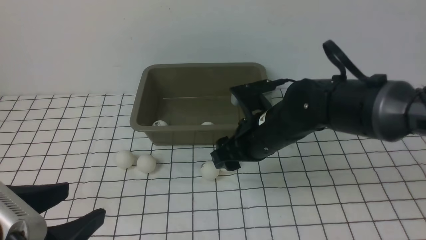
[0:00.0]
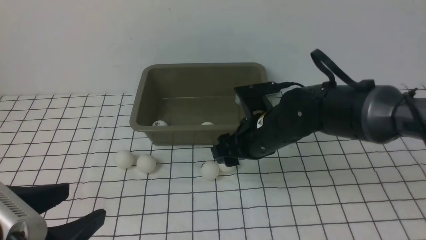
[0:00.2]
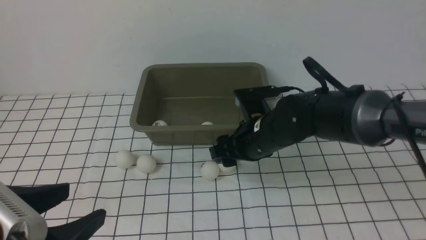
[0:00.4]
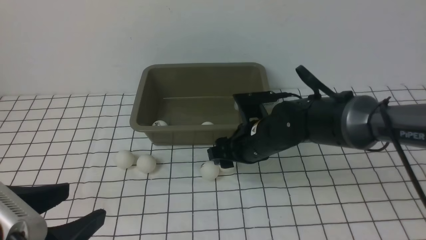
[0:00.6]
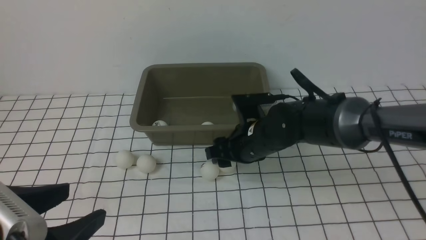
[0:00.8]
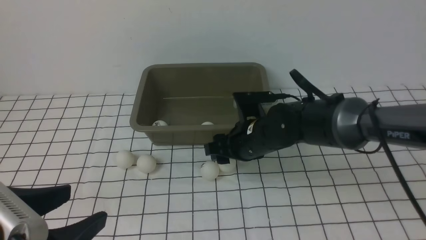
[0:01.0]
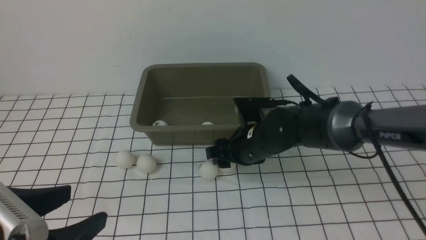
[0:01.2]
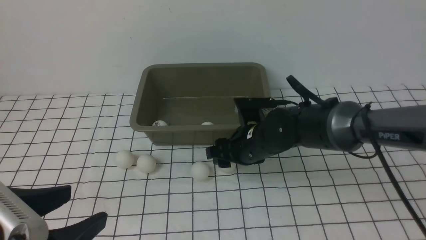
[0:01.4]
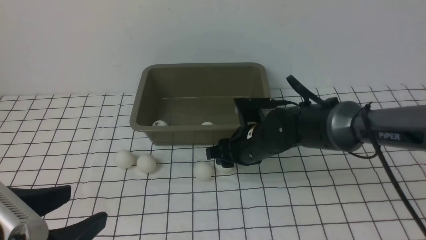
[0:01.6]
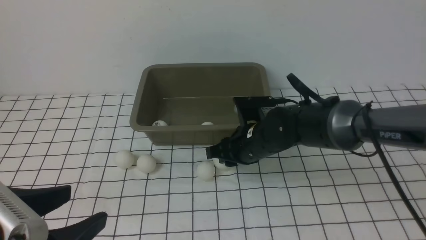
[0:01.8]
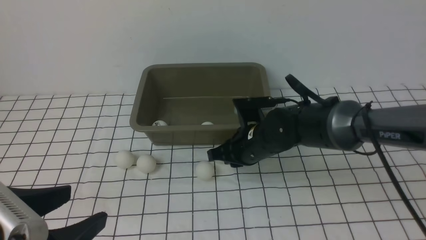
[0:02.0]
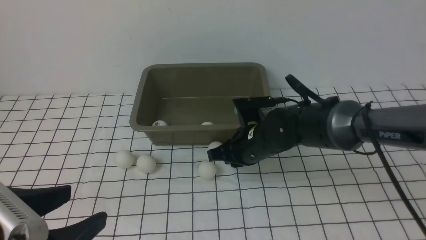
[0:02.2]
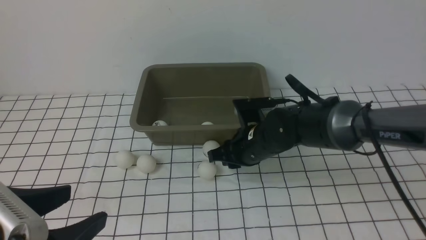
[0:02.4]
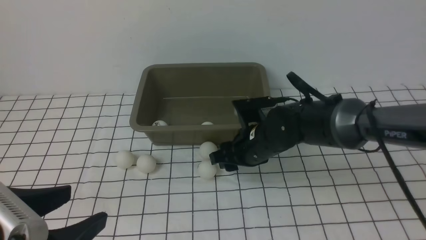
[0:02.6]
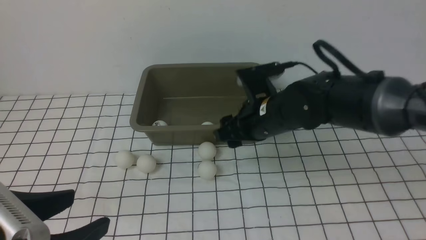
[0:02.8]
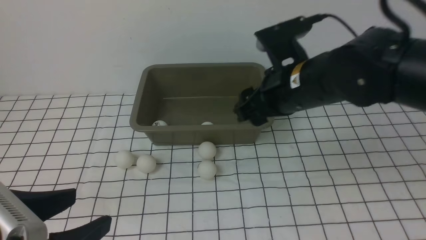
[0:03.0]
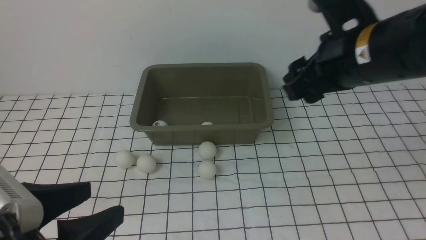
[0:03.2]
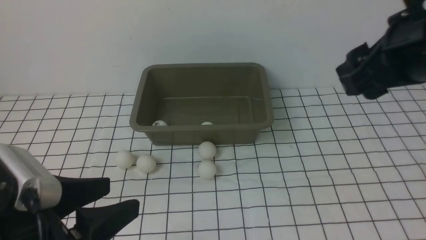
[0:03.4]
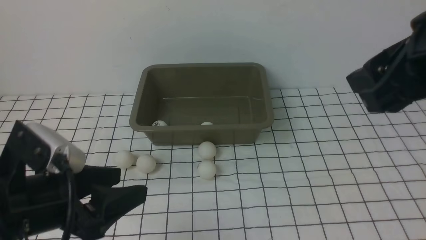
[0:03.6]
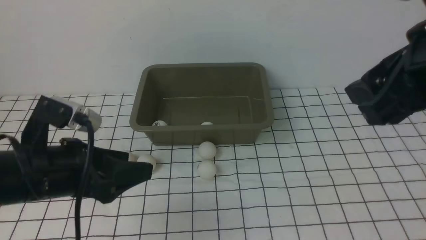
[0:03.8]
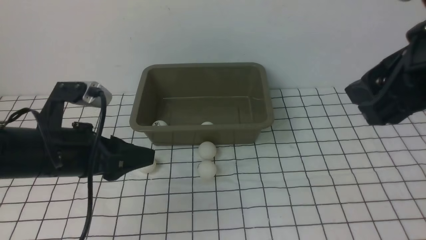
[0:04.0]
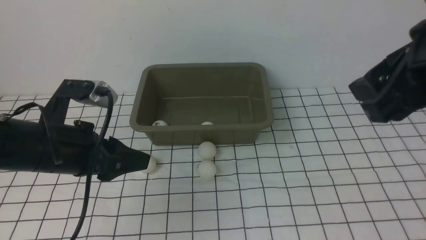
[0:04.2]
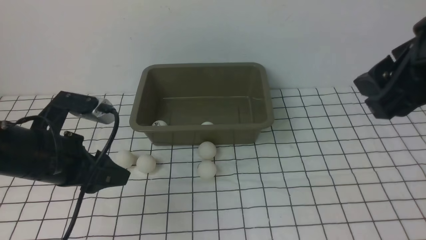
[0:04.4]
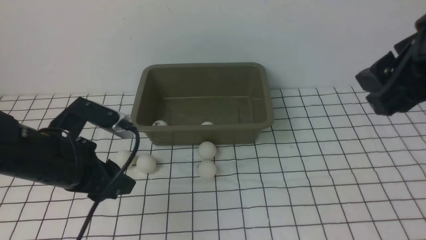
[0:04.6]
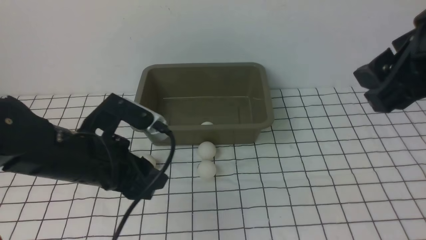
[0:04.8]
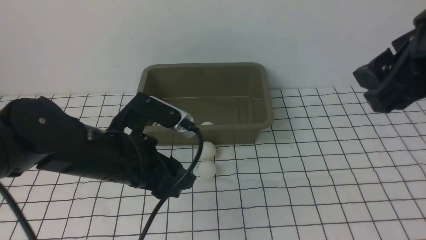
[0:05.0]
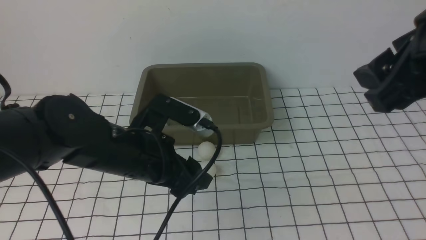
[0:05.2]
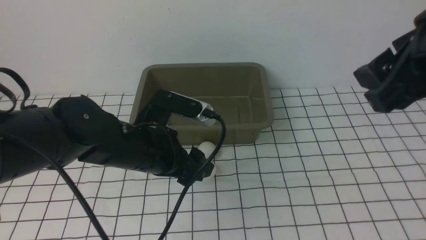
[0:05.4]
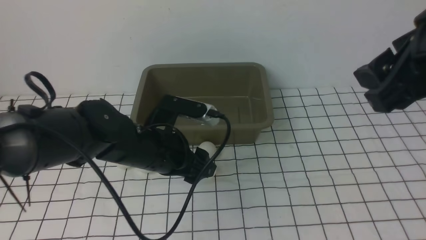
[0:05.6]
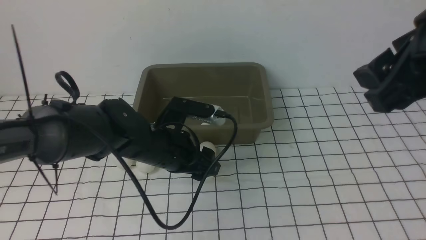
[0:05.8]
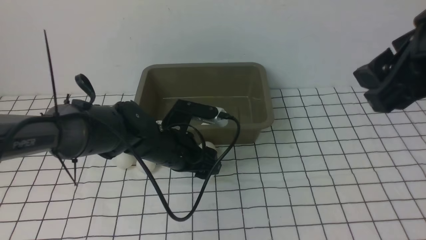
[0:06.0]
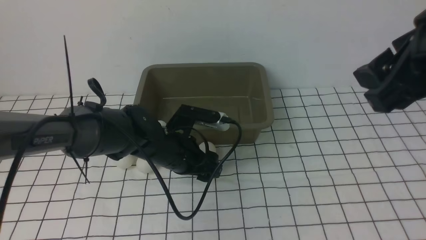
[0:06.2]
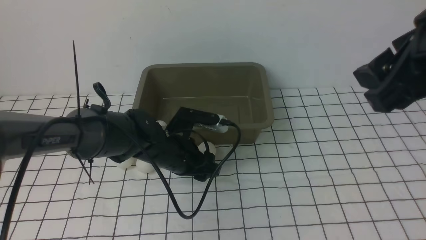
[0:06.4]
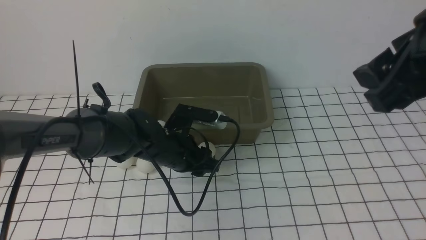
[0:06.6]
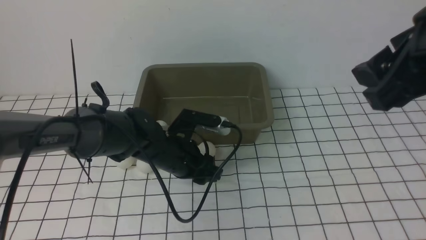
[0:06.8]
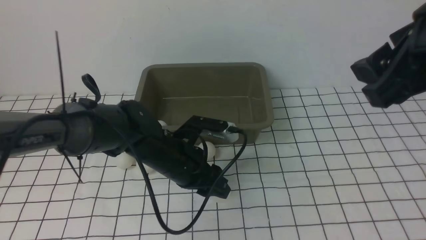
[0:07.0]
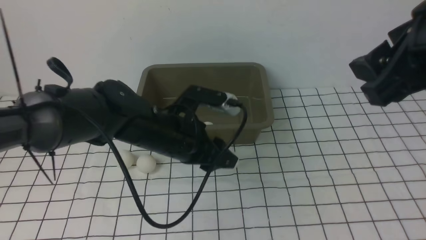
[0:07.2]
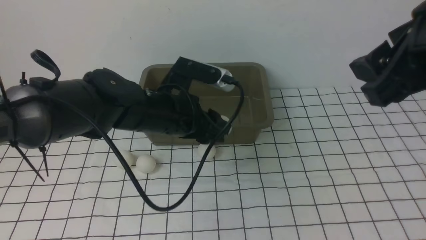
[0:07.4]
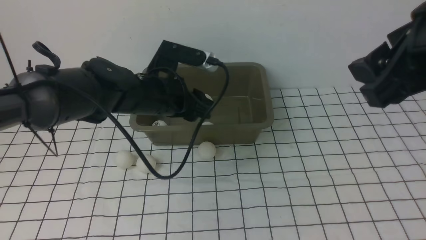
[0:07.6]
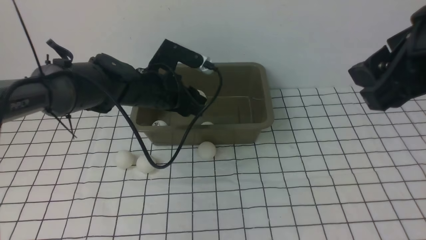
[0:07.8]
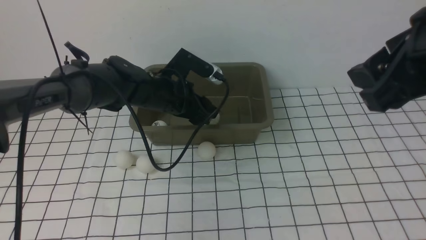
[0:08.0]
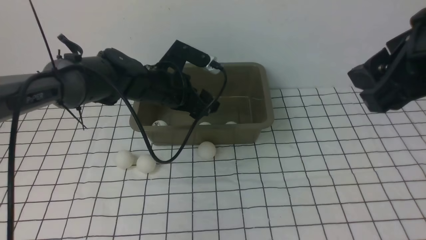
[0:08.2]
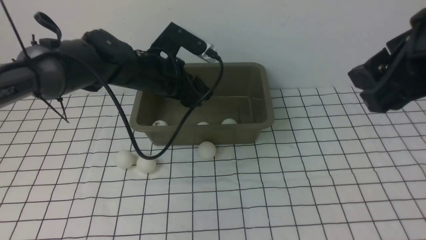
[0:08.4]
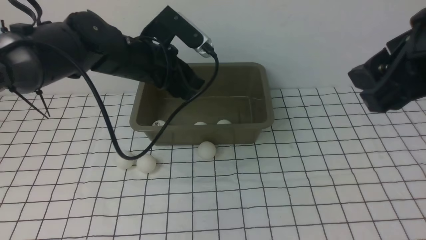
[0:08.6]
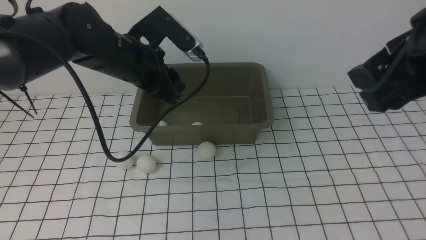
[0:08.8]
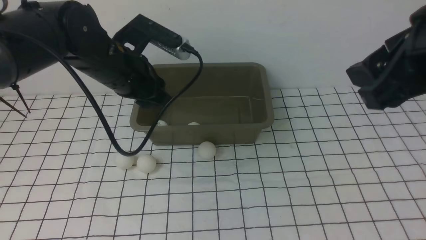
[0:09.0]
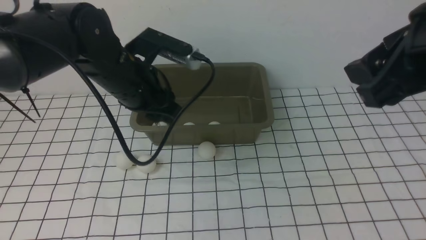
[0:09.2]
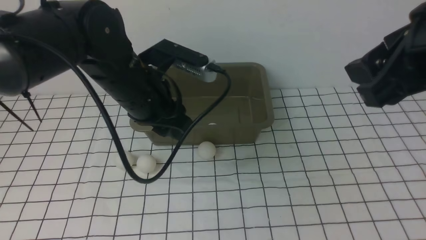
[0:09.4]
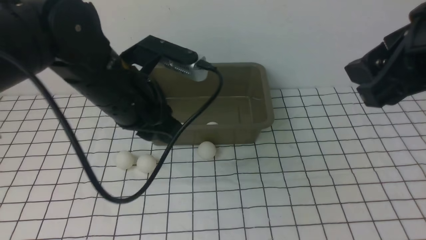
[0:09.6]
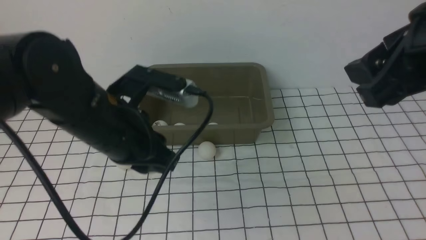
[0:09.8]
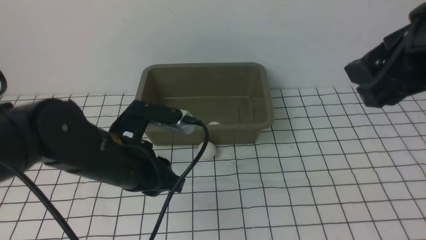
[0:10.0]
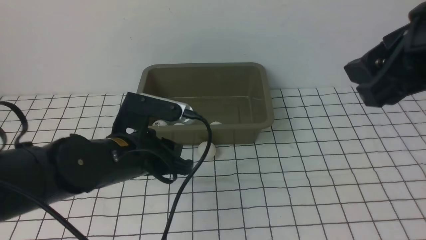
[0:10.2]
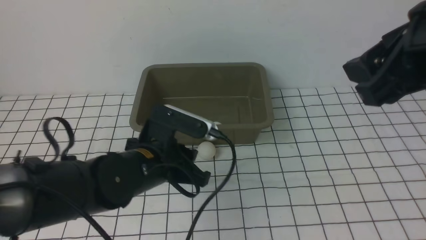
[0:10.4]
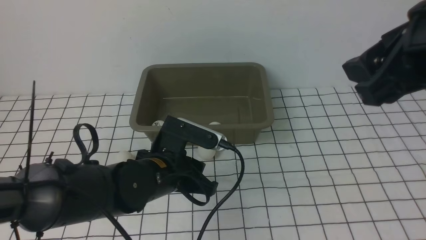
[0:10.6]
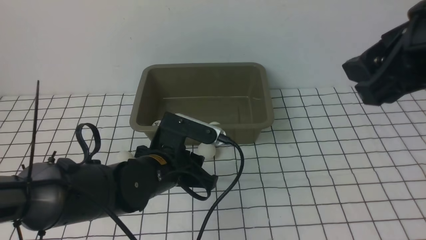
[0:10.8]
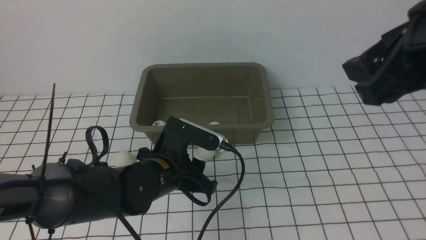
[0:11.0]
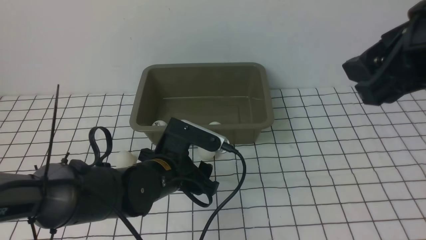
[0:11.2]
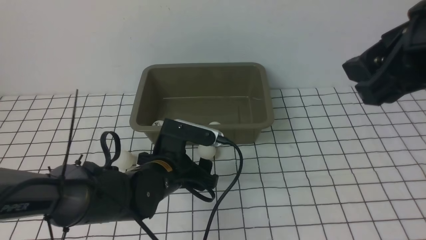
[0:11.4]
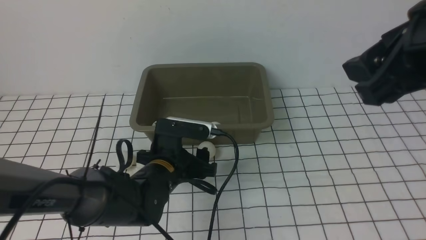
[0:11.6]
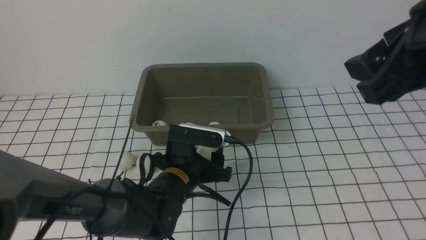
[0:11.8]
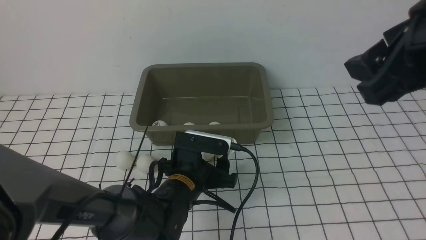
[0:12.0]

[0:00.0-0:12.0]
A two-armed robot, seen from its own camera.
Step, 0:00.0 to 0:07.2: use the left arm to clamp the table tennis ball closest to it.
Step, 0:07.4 to 0:08.2: use the left arm to put the table tennis ball into the box.
0:00.0 to 0:01.6: The right gripper moves downward, about 5 cm, and closes up.
0:01.6 to 0:03.0: The right gripper moves upward, some 15 cm, and opens up.
0:03.0 to 0:04.4: The right gripper is displaced backward, upward and to the right by about 15 cm. Meanwhile the left gripper moves forward, about 15 cm, and closes its fingers.
0:04.4 to 0:06.0: The left gripper goes some 20 cm to the right, downward and forward, and opens up.
0:06.0 to 0:07.6: The left gripper travels upward by approximately 10 cm, and closes its fingers.
0:07.6 to 0:09.0: The left gripper shifts some 5 cm upward, and opens, then closes again.
0:09.0 to 0:10.4: The left gripper moves backward and downward, approximately 15 cm, and closes.
0:10.4 to 0:12.0: The left gripper heads downward, covering some 10 cm, and opens its fingers.

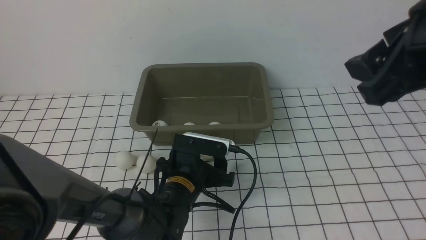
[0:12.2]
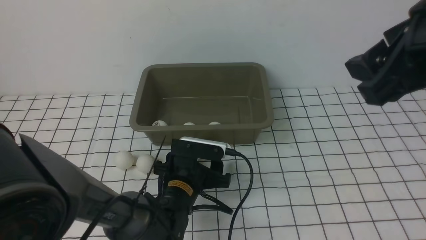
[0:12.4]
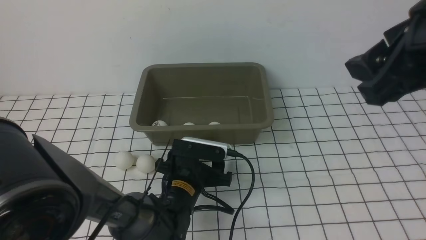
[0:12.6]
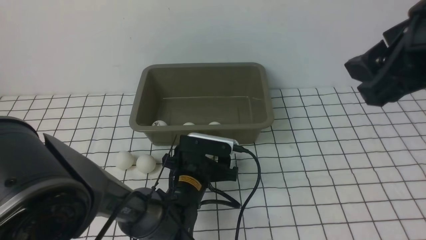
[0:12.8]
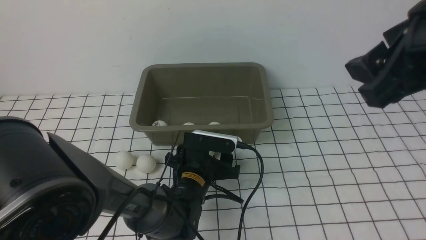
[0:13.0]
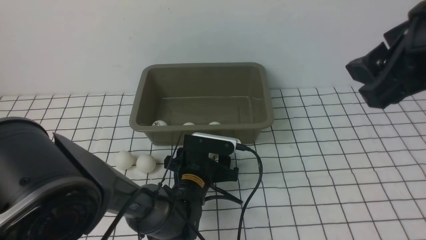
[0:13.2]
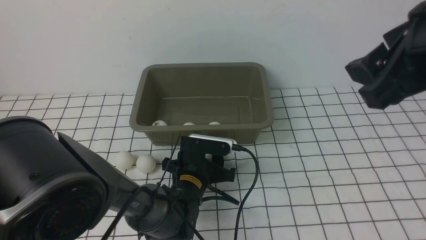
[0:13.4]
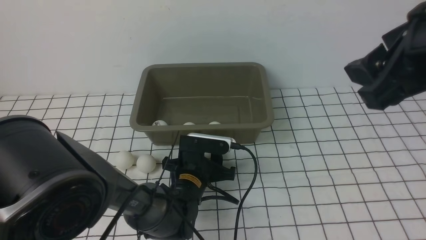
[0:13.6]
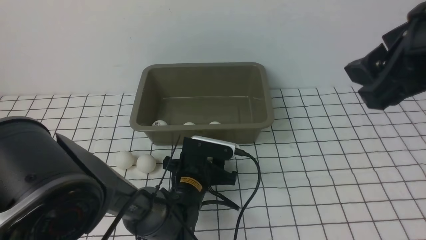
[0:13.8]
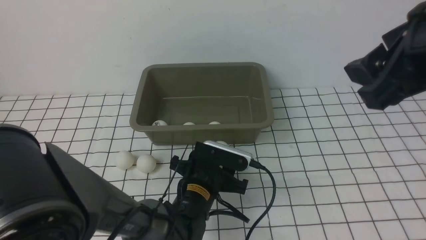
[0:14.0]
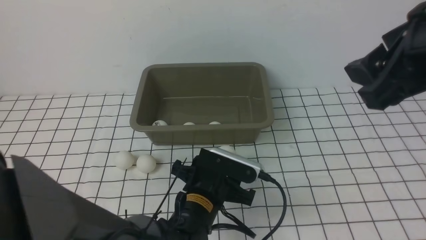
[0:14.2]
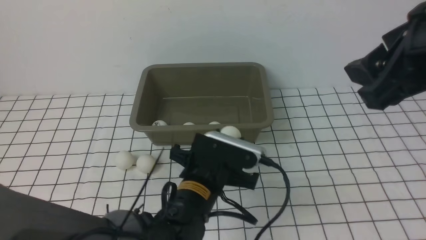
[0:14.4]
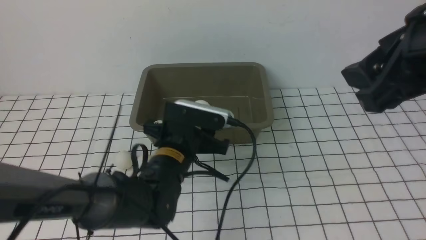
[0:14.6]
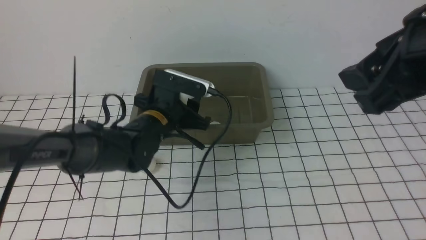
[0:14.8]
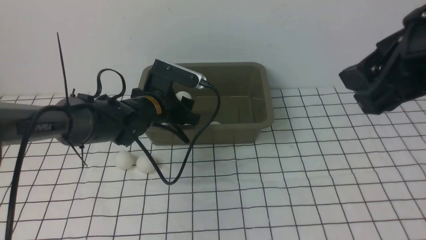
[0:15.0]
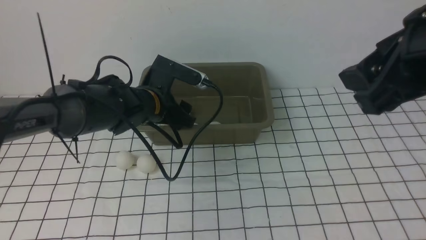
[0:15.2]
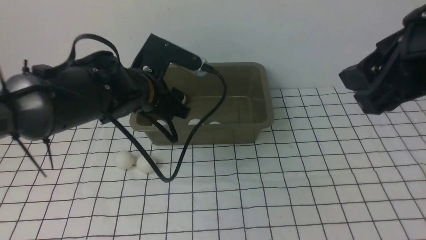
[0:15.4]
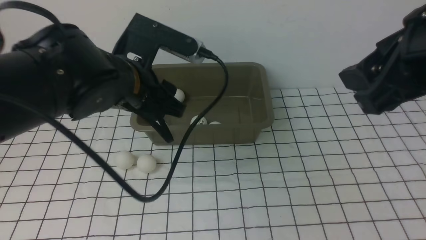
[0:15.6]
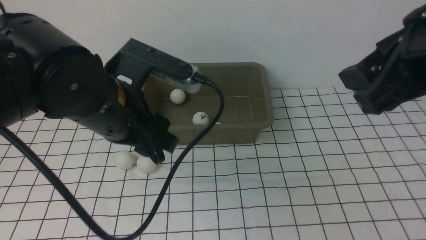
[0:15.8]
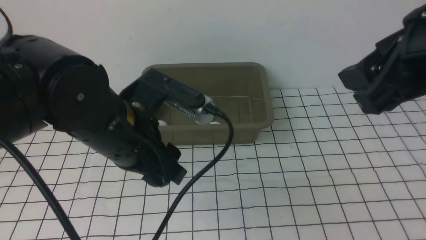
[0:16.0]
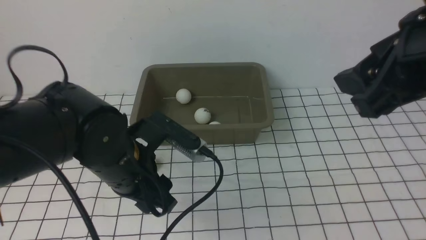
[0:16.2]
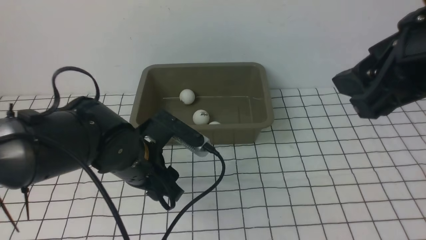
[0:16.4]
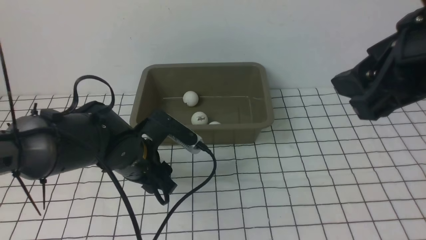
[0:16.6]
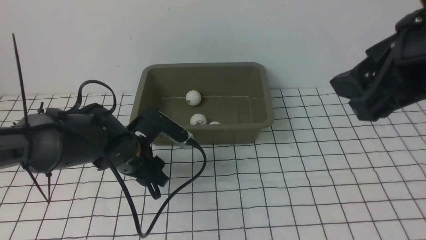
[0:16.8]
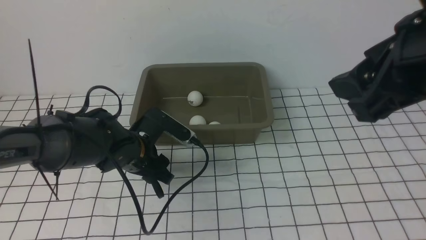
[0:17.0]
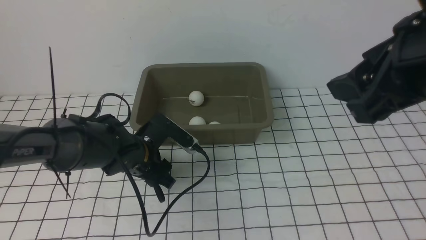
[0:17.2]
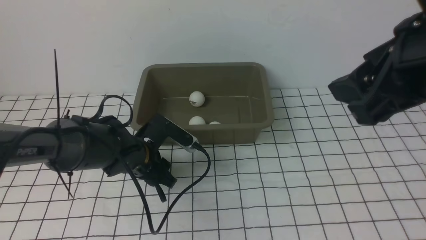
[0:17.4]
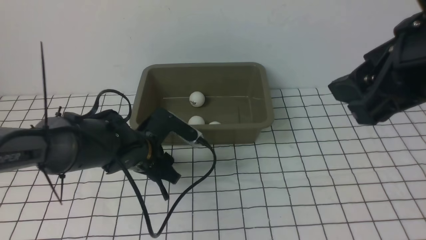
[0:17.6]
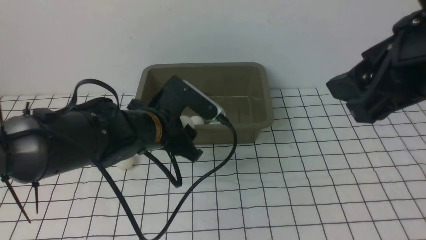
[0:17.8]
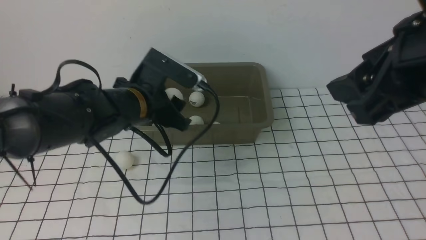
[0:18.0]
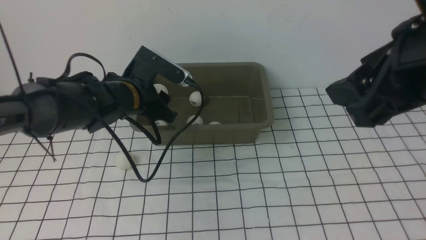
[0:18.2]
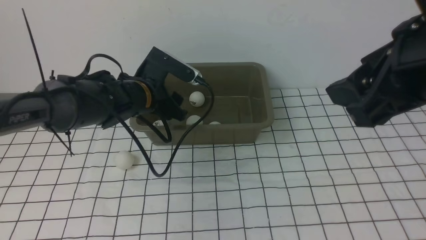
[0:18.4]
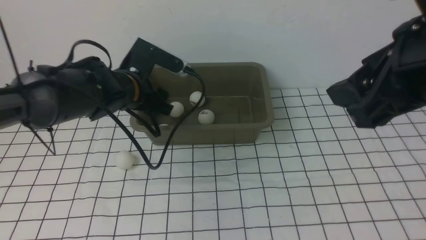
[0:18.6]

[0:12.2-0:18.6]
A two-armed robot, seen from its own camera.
Step, 0:14.4 to 0:15.2: use the left arm to put the table tennis ball into the box.
Step, 0:15.4 to 0:17.8: use the left arm to clamp the table tennis ball closest to it.
Step, 0:18.0 to 0:18.6: use the left arm to put the table tennis ball into the box.
0:12.2 to 0:13.8: The left gripper closes its fingers.
0:13.8 to 0:15.4: The left gripper moves upward, approximately 20 cm.
0:15.4 to 0:17.0: The left gripper is displaced downward by approximately 15 cm.
0:17.0 to 0:18.6: The left gripper moves upward and forward, approximately 10 cm.
